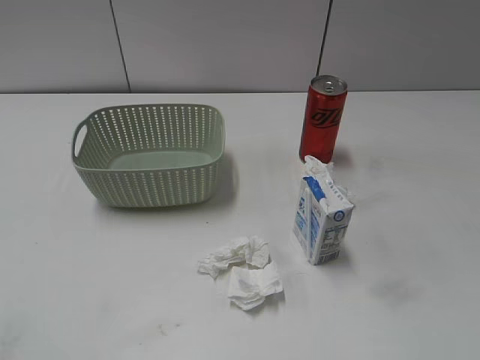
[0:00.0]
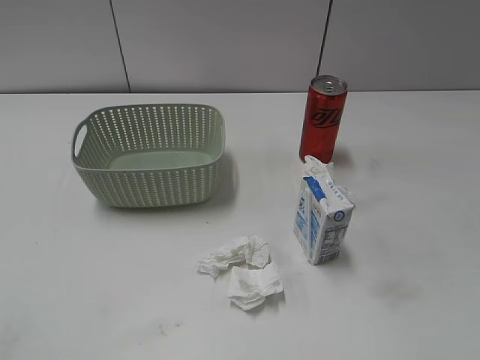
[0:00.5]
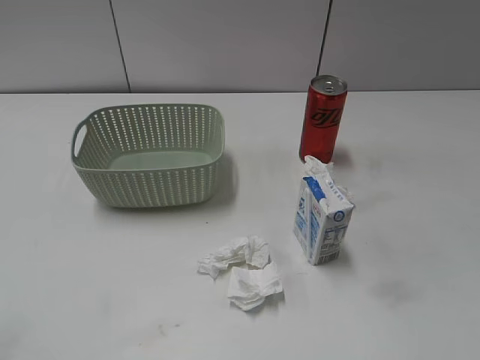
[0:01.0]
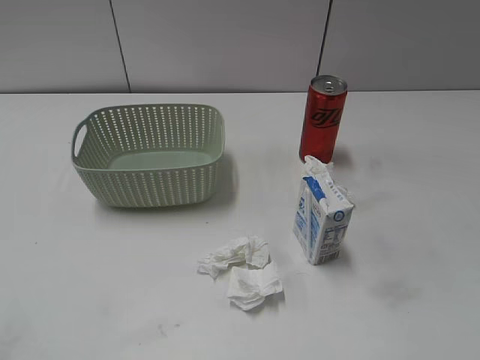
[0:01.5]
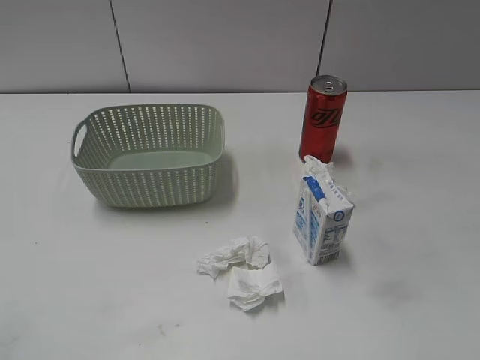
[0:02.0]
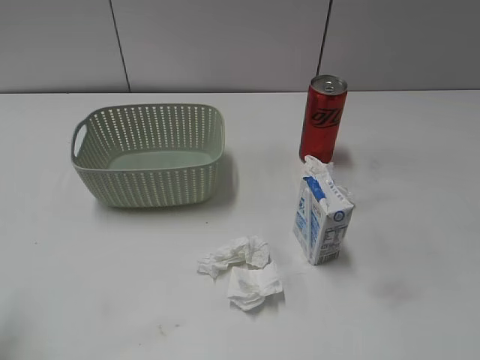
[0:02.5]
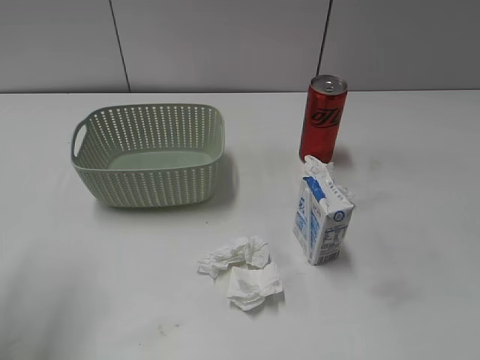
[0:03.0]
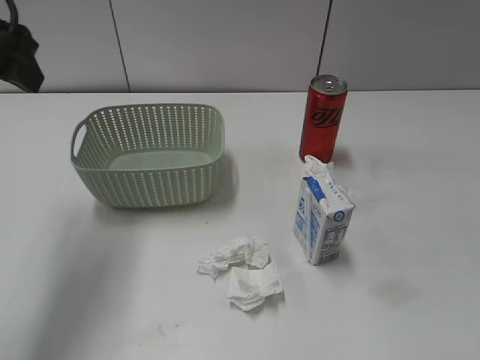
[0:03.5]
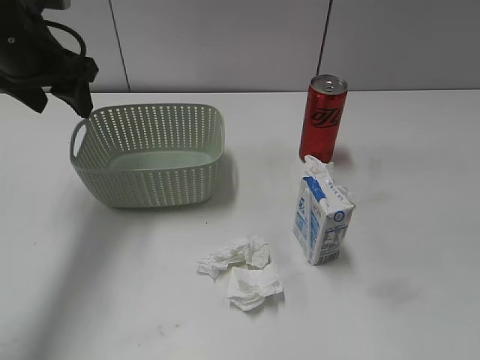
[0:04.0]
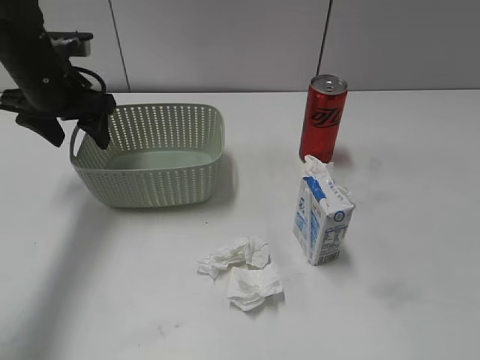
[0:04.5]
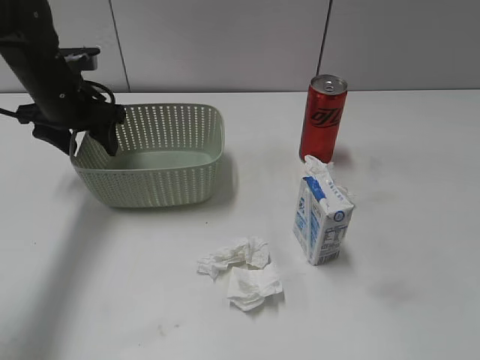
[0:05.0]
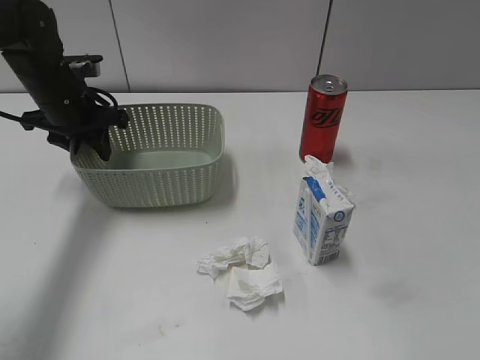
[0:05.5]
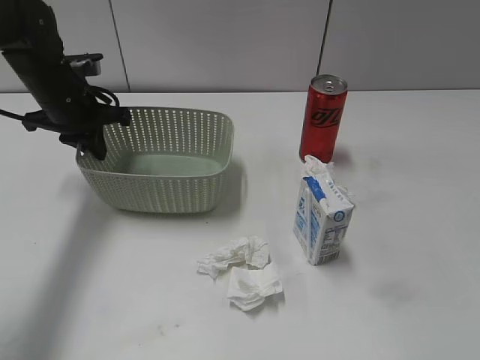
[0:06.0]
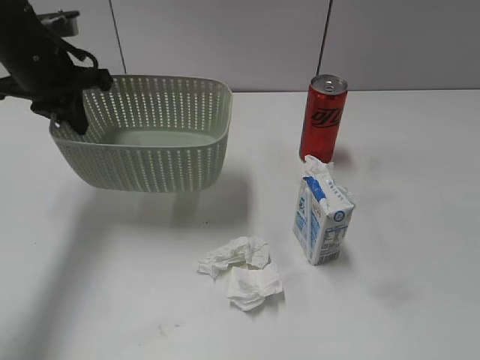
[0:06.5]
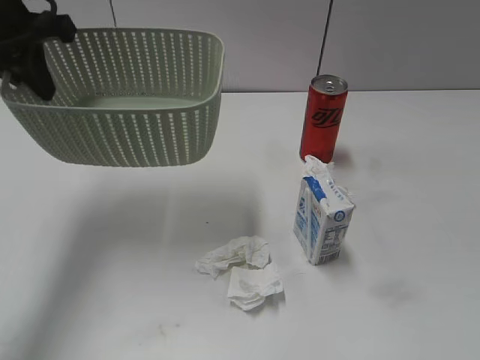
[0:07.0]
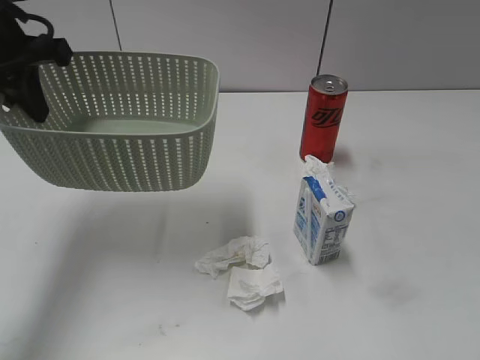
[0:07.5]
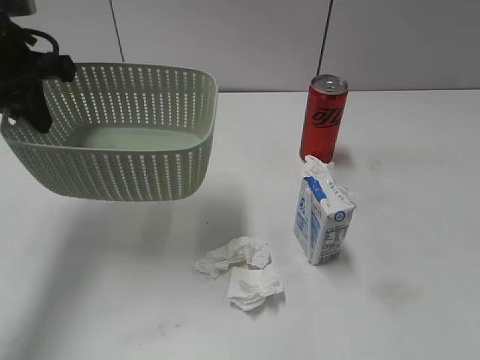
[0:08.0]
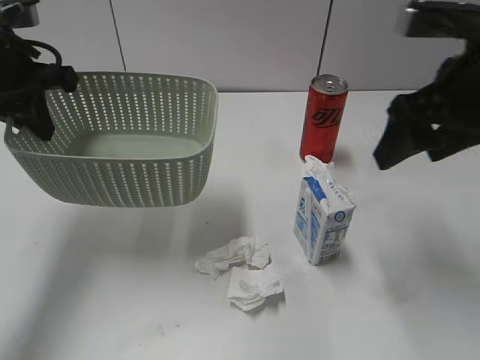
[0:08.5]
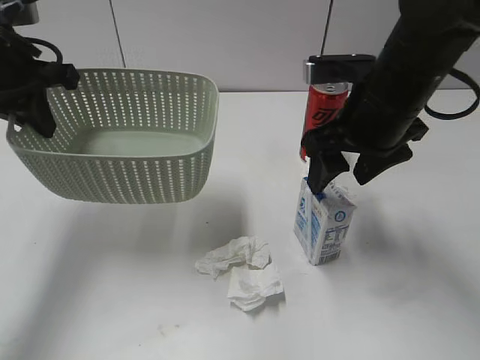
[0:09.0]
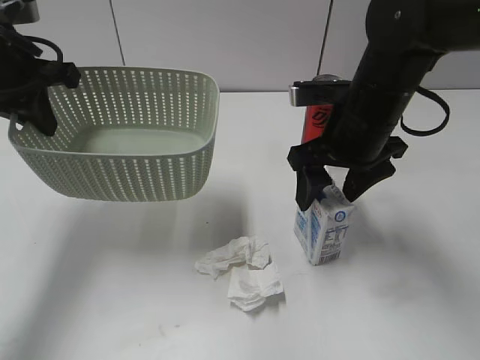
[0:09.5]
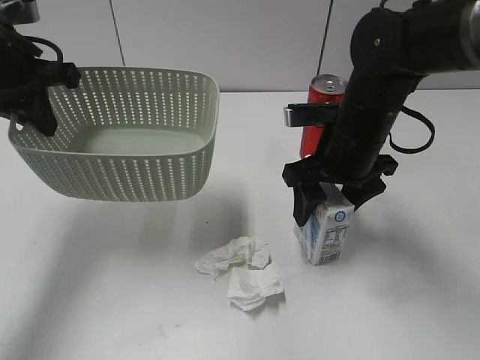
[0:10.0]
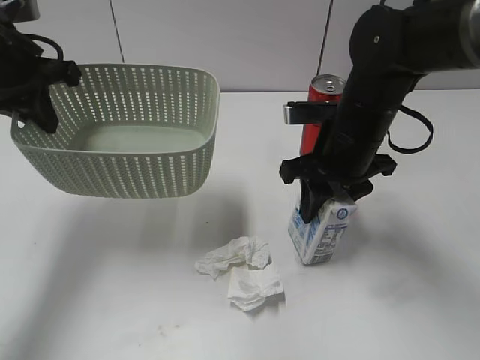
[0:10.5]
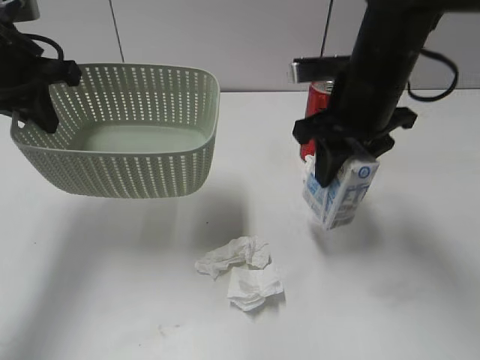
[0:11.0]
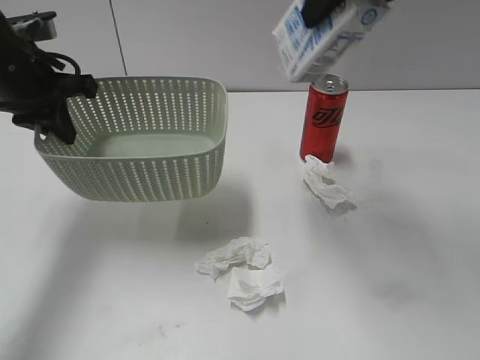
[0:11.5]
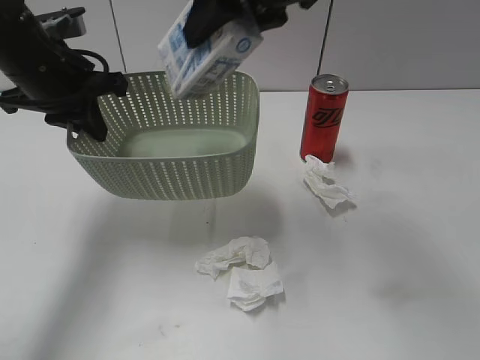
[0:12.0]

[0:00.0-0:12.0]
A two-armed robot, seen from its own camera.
Step, 0:03.5 to 0:06.0: Grasp the basket with left gripper.
Step, 0:06.5 to 0:08.0: Lift the basket with left gripper.
Step, 0:08.5 to 0:10.5: Grasp the milk with right gripper.
0:02.0 to 0:04.0: The left gripper shifts some 35 cm forward.
0:04.0 to 0:06.0: The left gripper moves downward, some 10 cm, and closes.
0:06.0 to 0:08.0: The right gripper is displaced forward by roughly 20 cm, while the left gripper shifts approximately 15 cm upward and backward.
0:08.0 to 0:10.0: The right gripper heads to the left, forward and downward, covering some 30 cm.
0:10.0 to 0:12.0: The right gripper travels upward and to the left by about 20 cm, and closes.

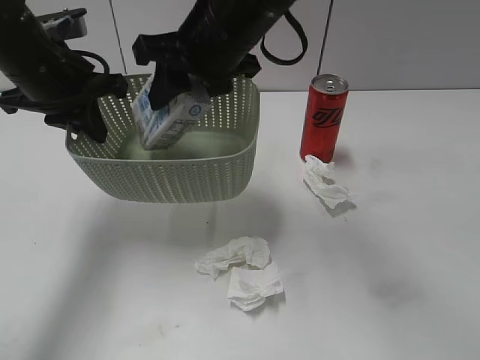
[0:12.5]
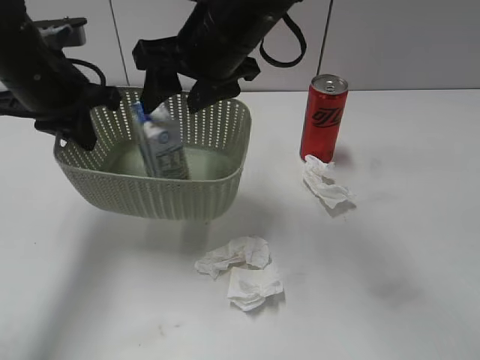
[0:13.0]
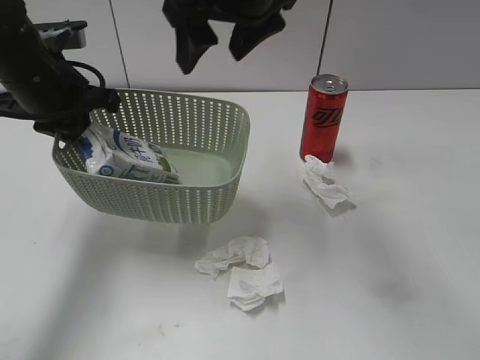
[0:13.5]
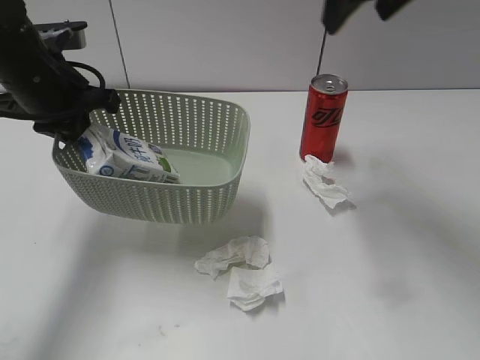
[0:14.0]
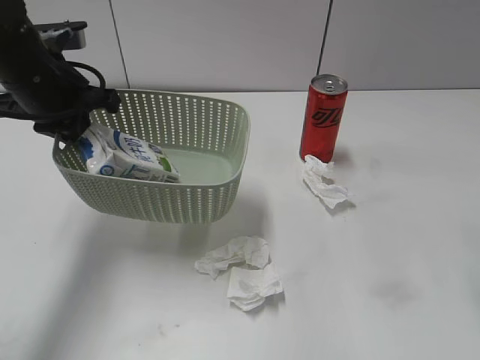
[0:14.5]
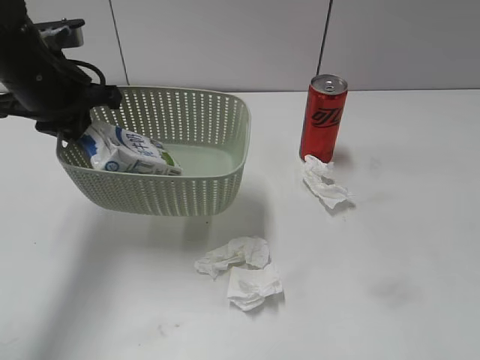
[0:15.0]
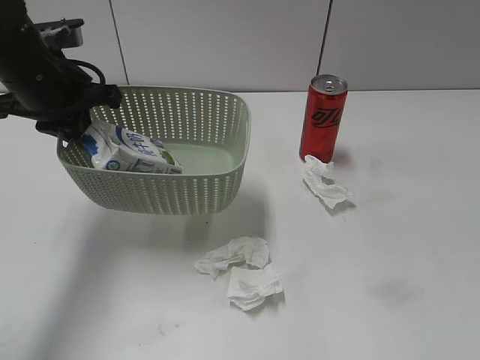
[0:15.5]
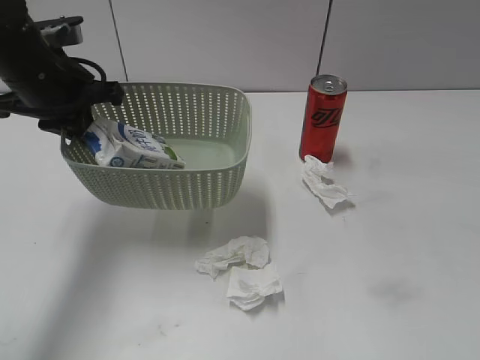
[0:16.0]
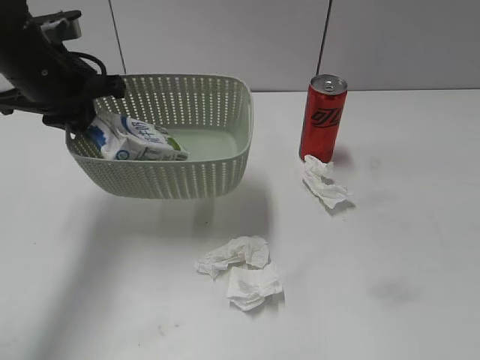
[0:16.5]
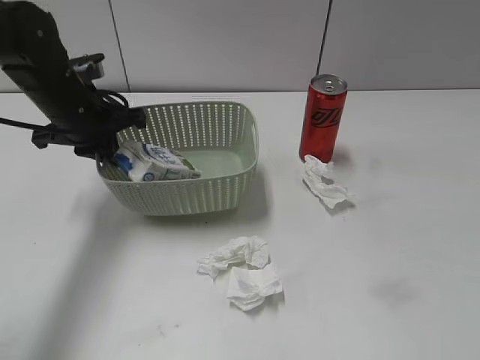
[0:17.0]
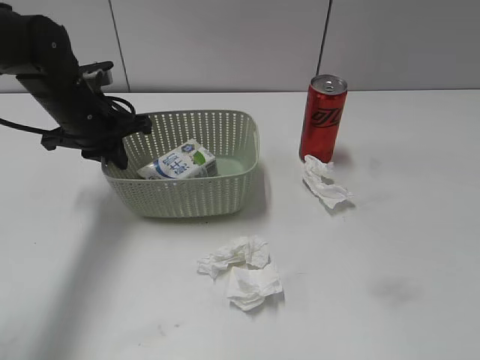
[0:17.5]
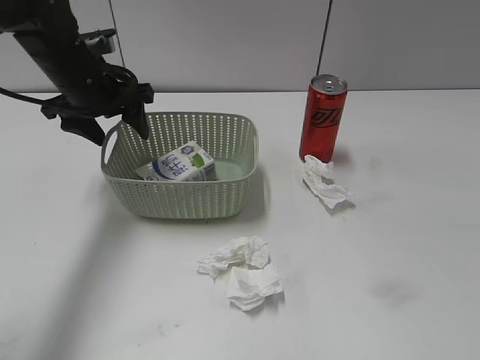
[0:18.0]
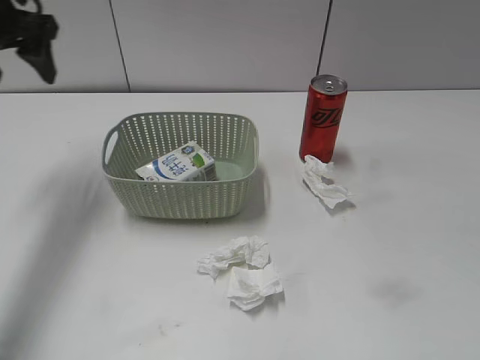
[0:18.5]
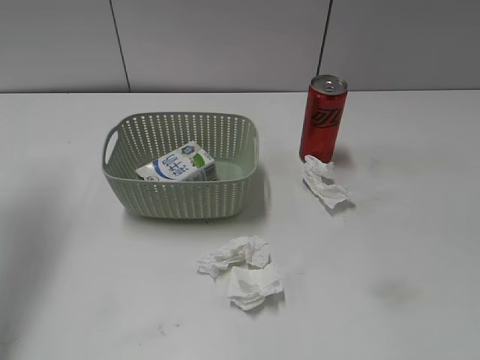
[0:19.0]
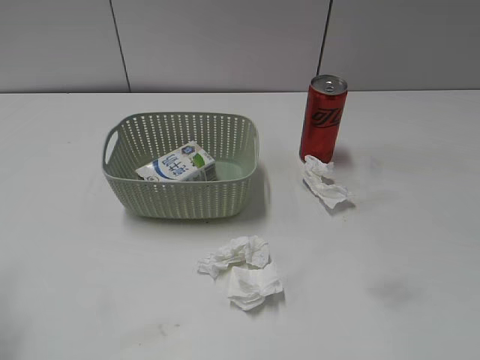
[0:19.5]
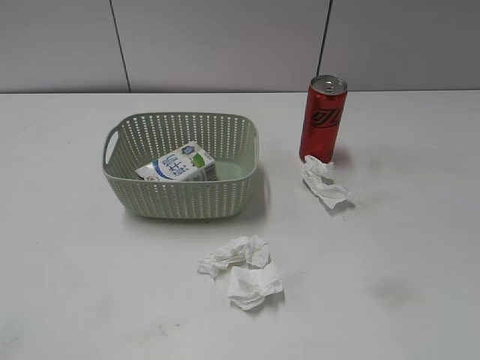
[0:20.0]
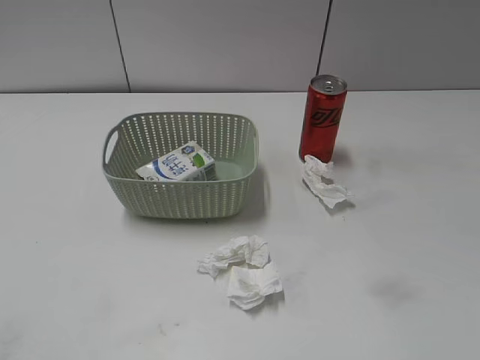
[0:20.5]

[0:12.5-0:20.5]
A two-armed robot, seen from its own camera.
Step, 0:13.5 to 0:18.0: Place the basket on the table with left gripper.
0:12.5 to 0:14.5: The right gripper shifts about 30 cm to the right and backward, and opens its fingers.
0:14.5 to 0:16.5: The right gripper is displaced backward by roughly 20 cm.
0:16.5 to 0:18.5: The left gripper is displaced to the left and upward by some 10 cm, and opens.
0:18.5 to 0:20.5: The left gripper goes approximately 40 cm backward.

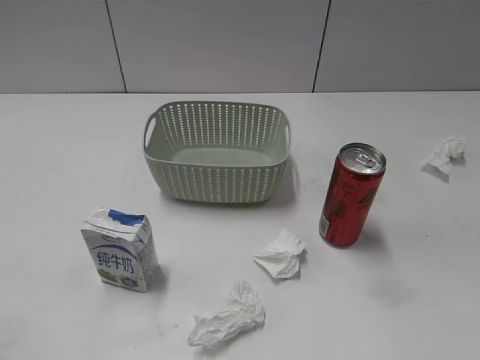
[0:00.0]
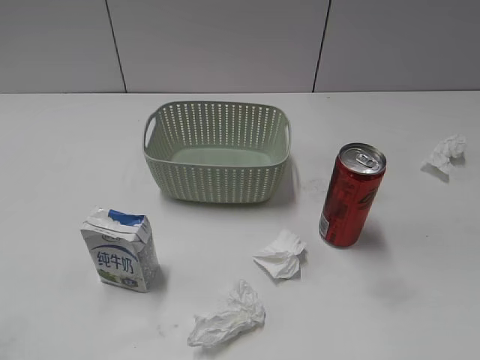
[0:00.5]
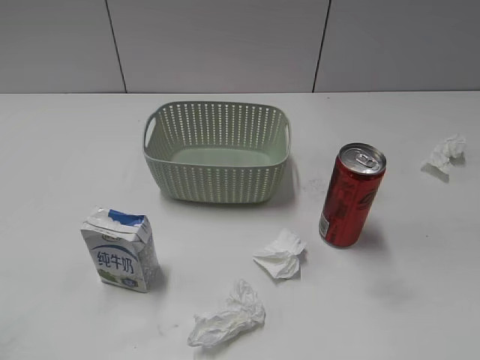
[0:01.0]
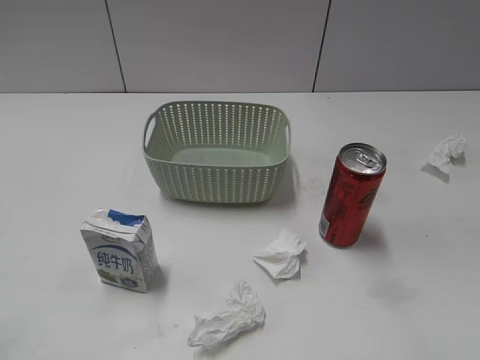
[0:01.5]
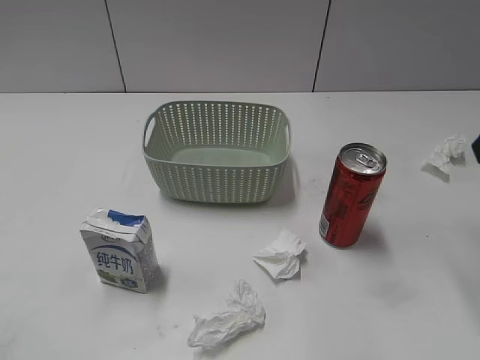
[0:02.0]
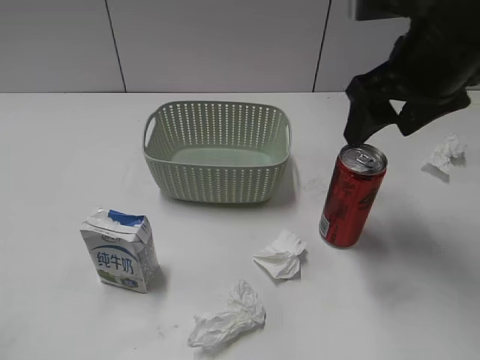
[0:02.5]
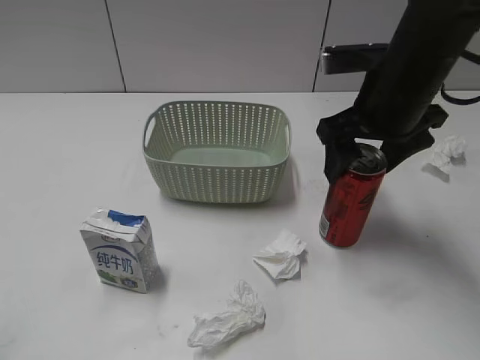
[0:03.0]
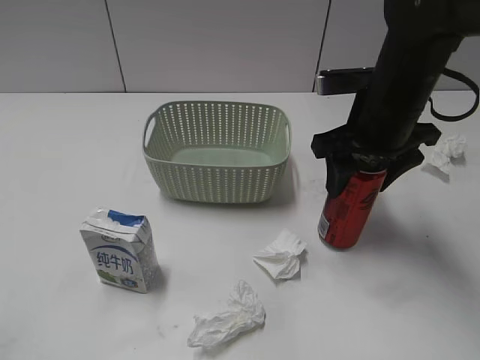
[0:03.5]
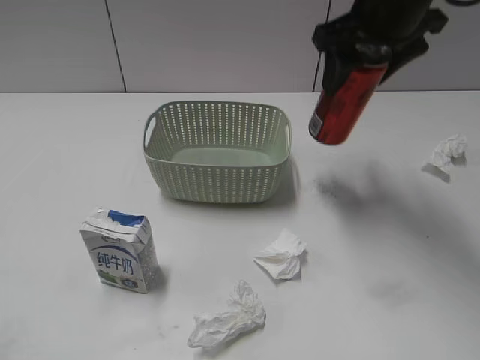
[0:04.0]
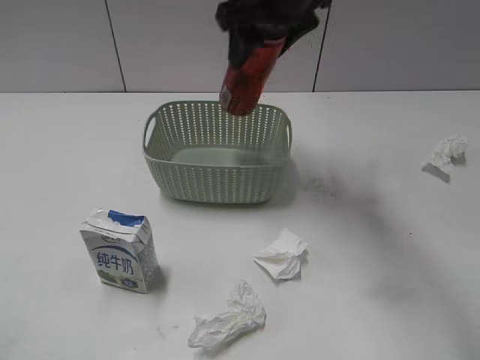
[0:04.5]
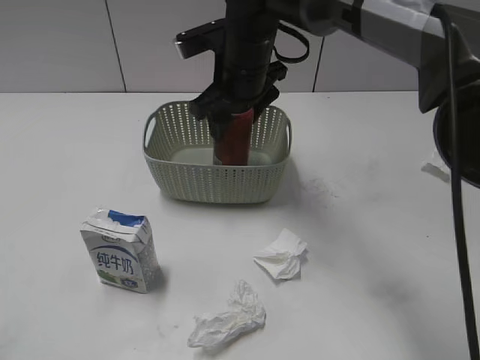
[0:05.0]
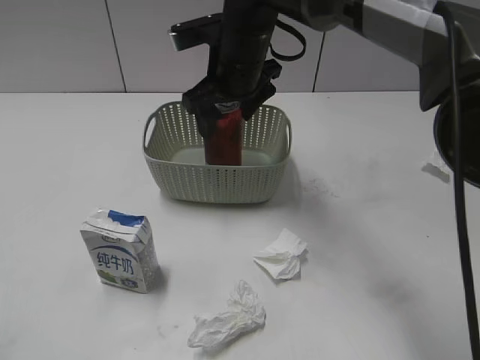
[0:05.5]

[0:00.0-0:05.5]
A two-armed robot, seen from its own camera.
Step, 0:02.0 to 0:03.0: Grasp the cola can with right gripper.
0:02.0 to 0:03.5: The right gripper heads to the left, downward and forward, covering approximately 20 cm, and closes.
0:03.5 to 0:05.5: The right gripper shifts some 15 cm to the left and forward, and opens.
